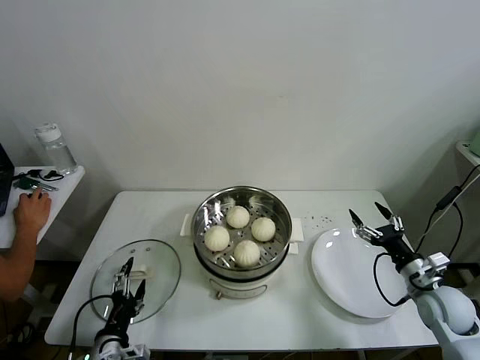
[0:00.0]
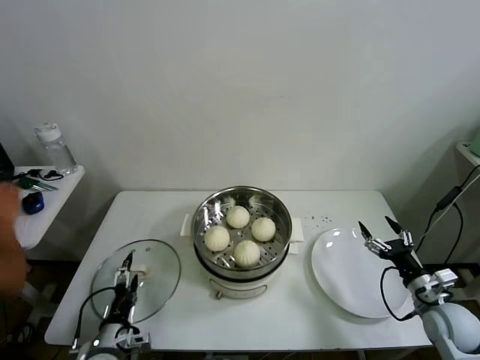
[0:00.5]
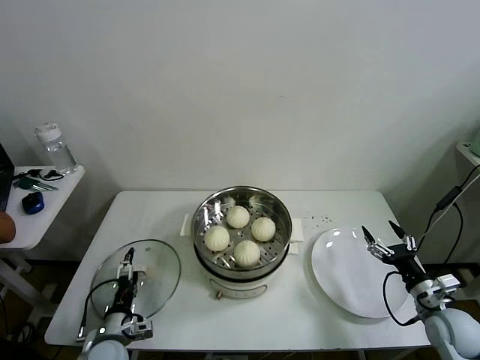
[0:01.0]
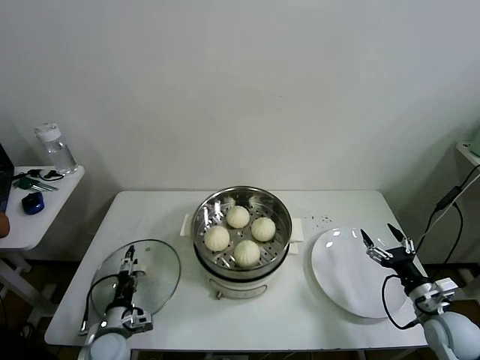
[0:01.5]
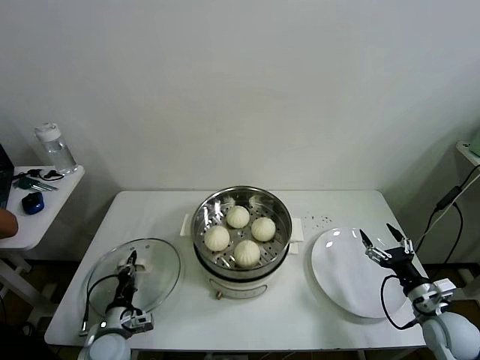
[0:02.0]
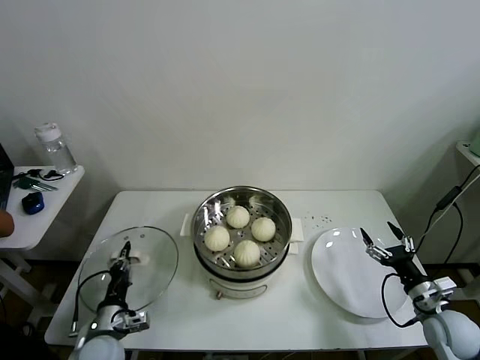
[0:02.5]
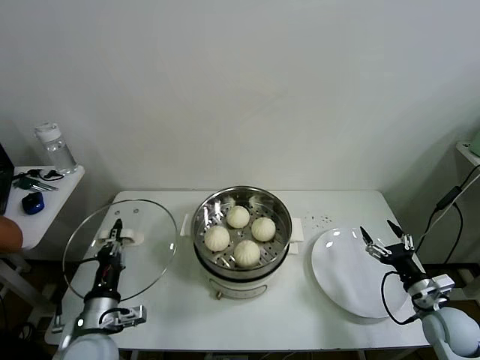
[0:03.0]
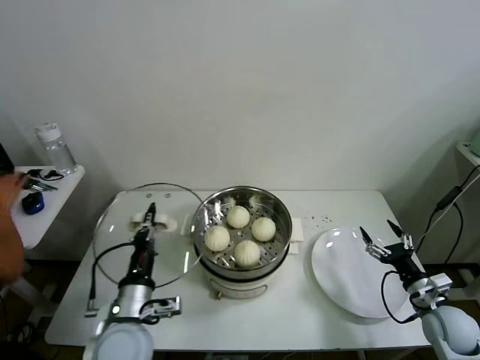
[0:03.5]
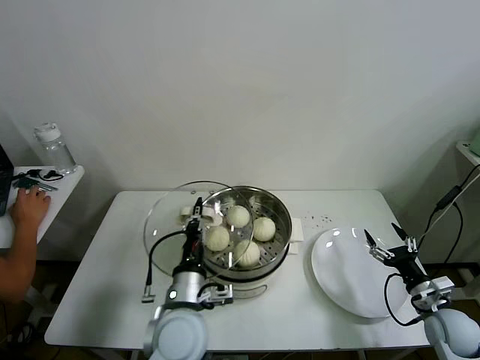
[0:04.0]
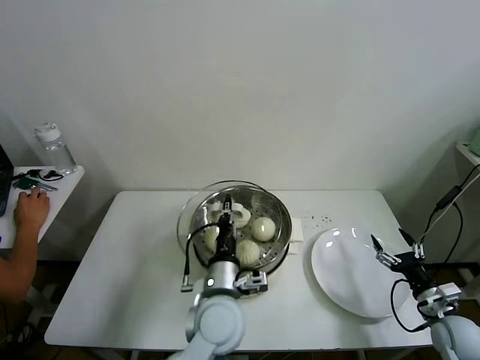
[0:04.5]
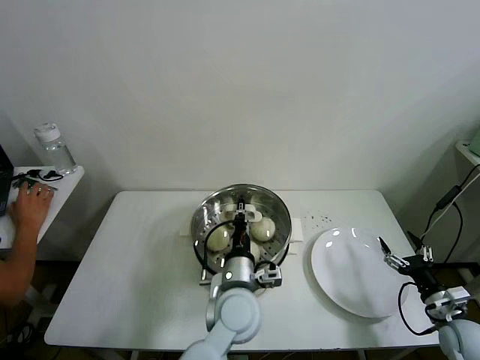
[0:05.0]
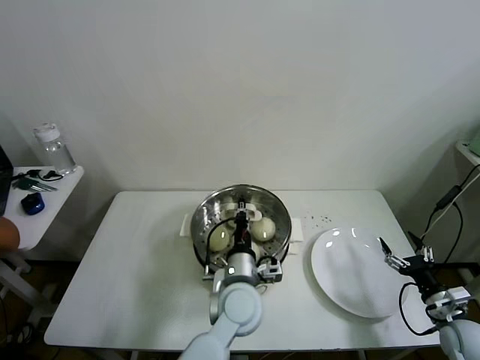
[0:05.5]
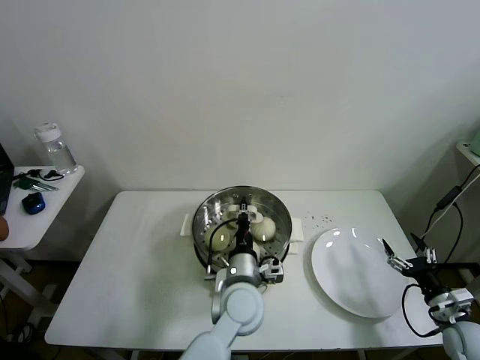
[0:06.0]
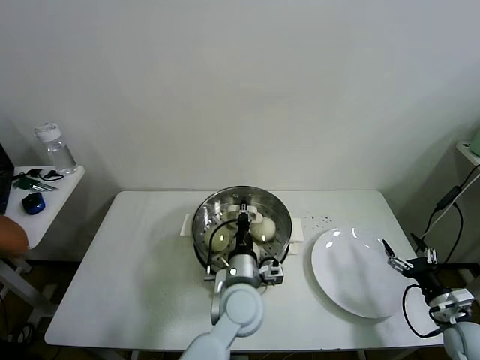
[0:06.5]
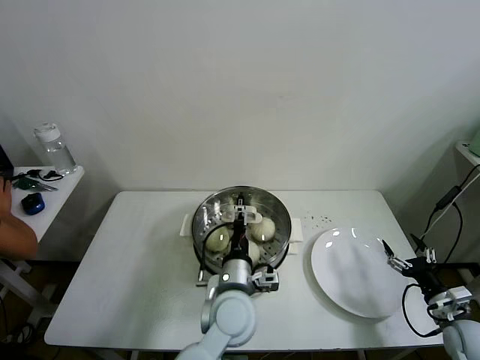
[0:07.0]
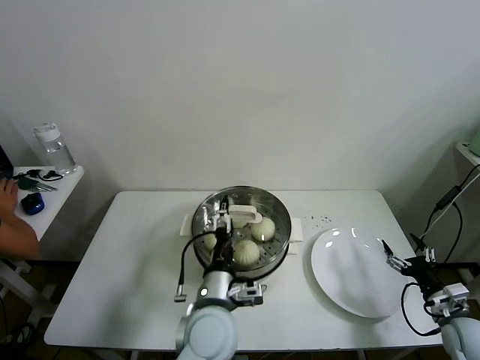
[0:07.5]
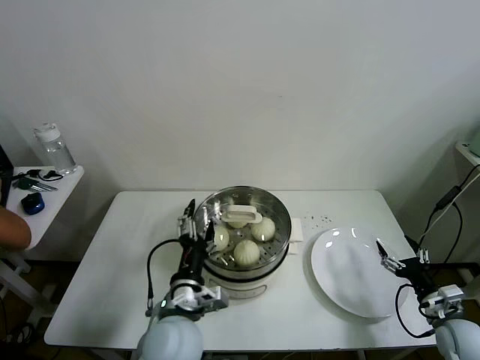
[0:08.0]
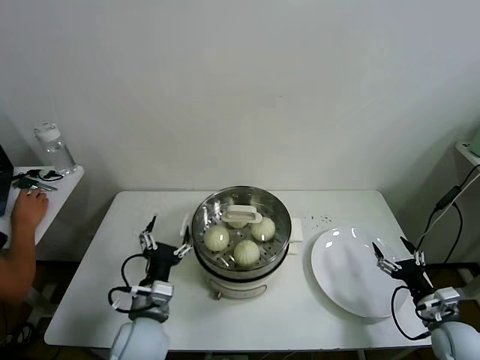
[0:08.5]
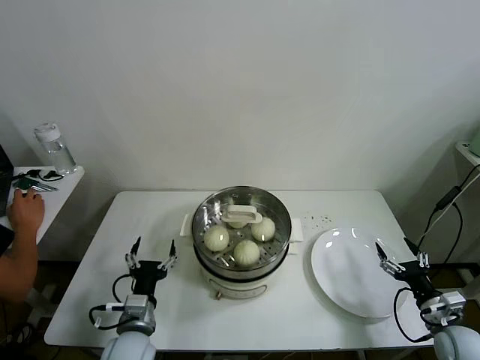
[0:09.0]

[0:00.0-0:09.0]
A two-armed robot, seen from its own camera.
Task of the whole recording: take steamed baozi put them in steamer then cover it.
Step, 0:00.0 to 0:02.0: Grasp the pot lid with left gripper.
Step, 0:02.5 to 0:06.5: Place the pot lid on the steamer with left gripper.
0:00.0 to 0:02.0: The left gripper travels downward and forward by about 10 cm, and closes its fingers. Meanwhile the right gripper shifts by some 5 cm.
0:02.0 to 0:04.5: The left gripper heads to the right and upward, covering some 30 cm.
0:04.5 to 0:07.0: The left gripper opens.
0:07.0 to 0:09.0: The left gripper is displaced to the left by about 20 cm, and opens its fingers.
